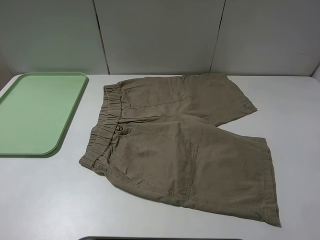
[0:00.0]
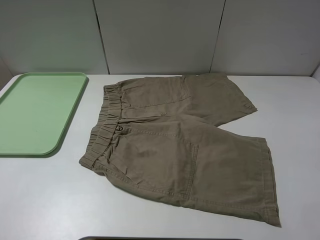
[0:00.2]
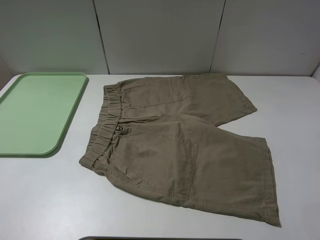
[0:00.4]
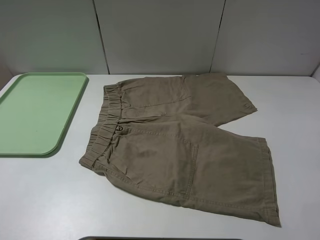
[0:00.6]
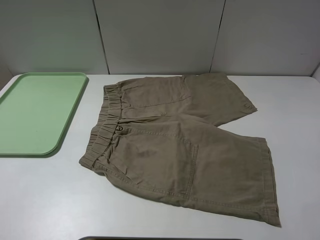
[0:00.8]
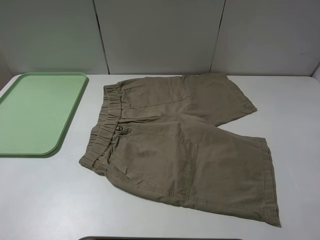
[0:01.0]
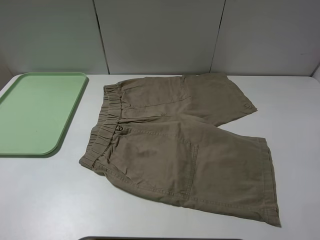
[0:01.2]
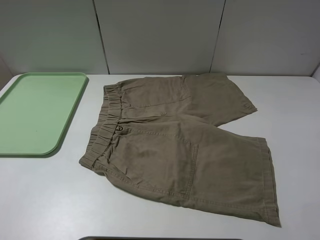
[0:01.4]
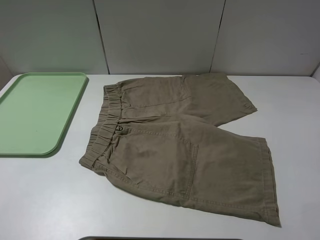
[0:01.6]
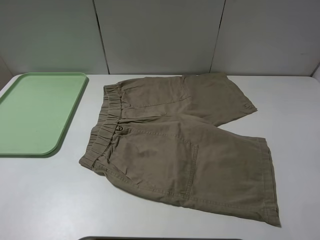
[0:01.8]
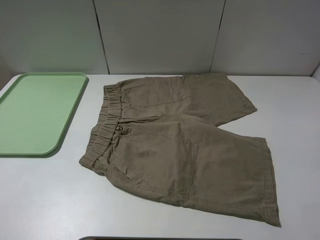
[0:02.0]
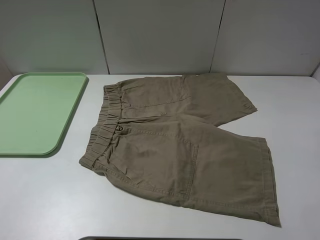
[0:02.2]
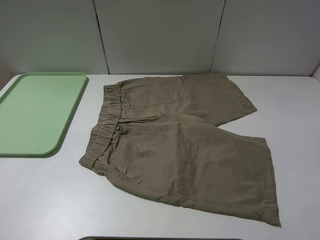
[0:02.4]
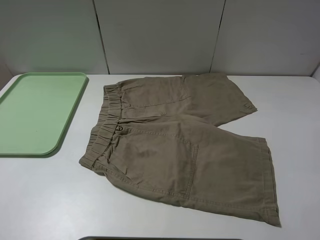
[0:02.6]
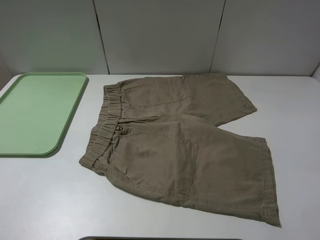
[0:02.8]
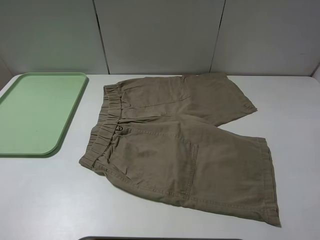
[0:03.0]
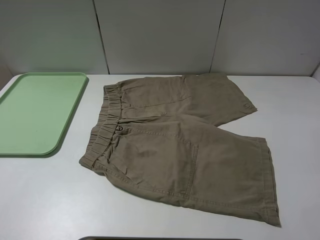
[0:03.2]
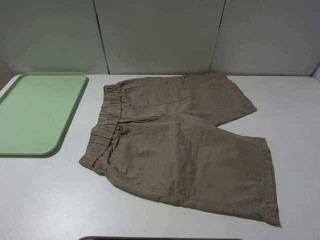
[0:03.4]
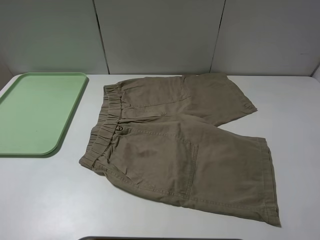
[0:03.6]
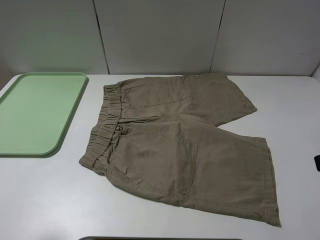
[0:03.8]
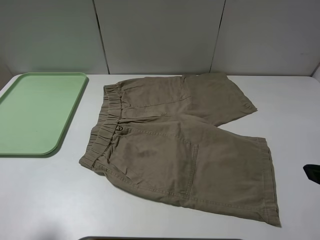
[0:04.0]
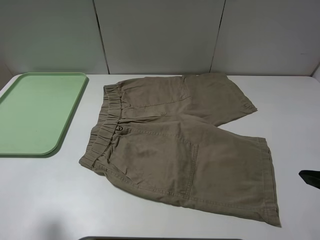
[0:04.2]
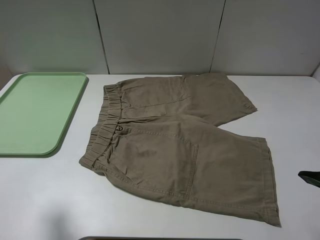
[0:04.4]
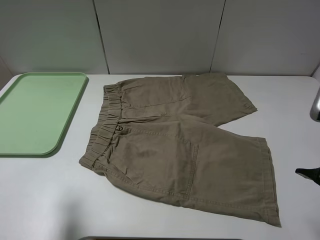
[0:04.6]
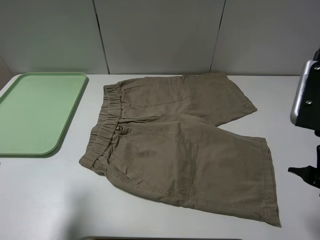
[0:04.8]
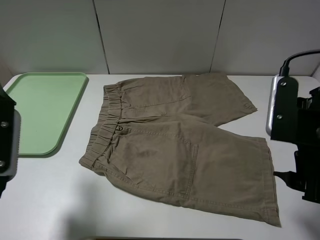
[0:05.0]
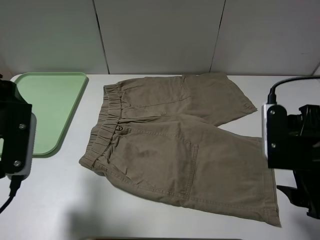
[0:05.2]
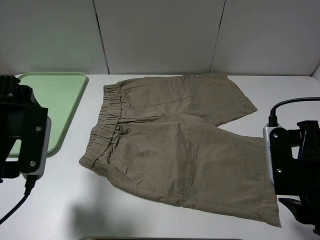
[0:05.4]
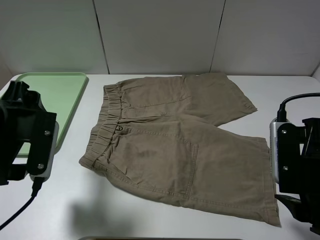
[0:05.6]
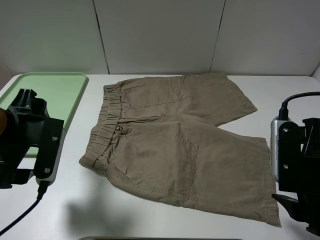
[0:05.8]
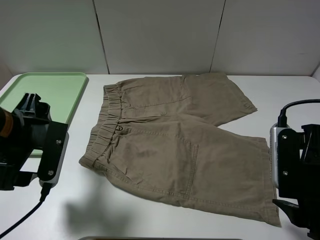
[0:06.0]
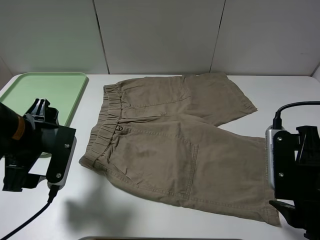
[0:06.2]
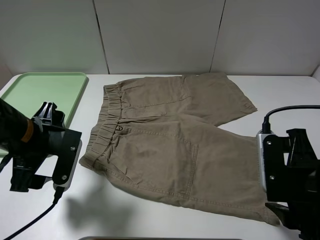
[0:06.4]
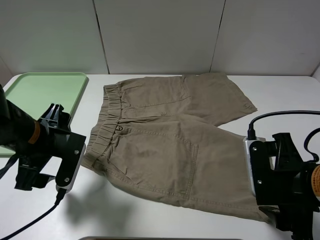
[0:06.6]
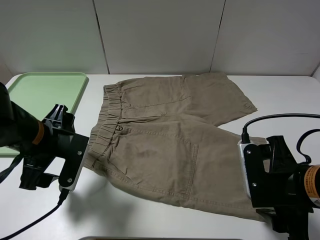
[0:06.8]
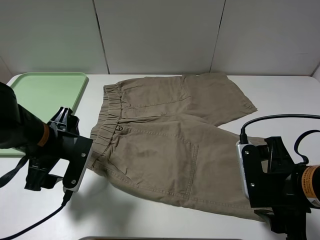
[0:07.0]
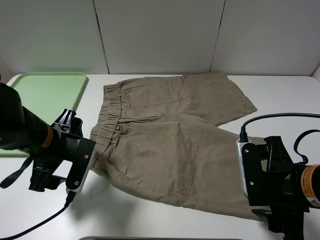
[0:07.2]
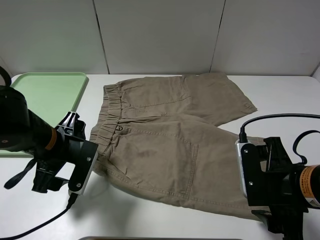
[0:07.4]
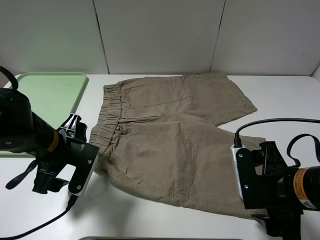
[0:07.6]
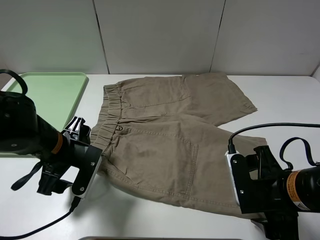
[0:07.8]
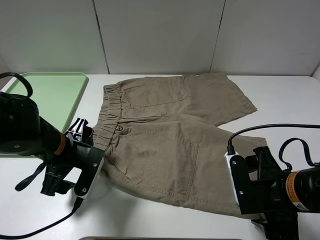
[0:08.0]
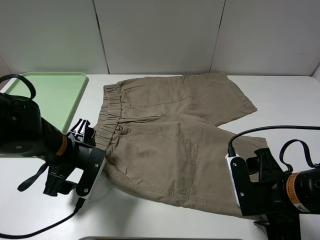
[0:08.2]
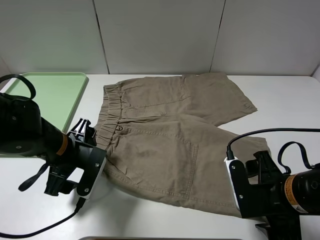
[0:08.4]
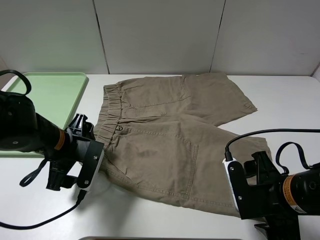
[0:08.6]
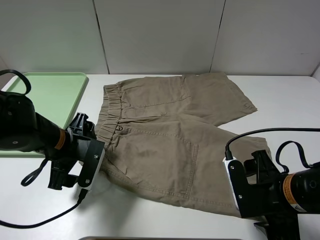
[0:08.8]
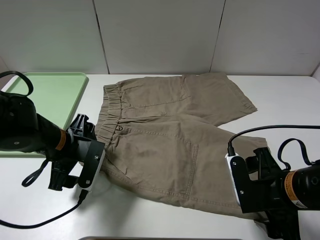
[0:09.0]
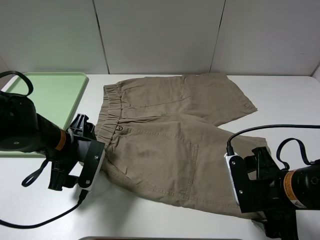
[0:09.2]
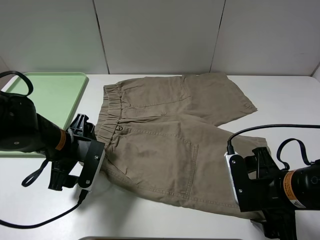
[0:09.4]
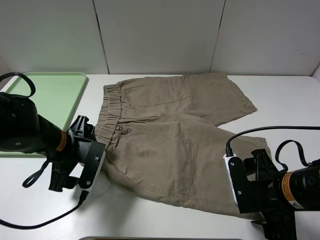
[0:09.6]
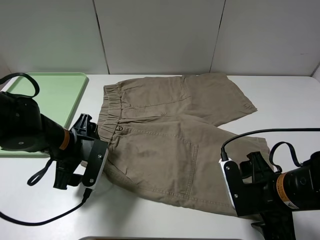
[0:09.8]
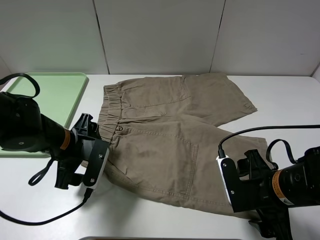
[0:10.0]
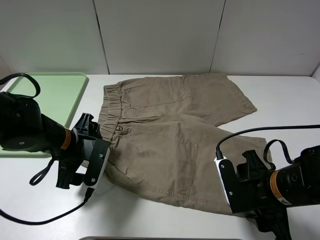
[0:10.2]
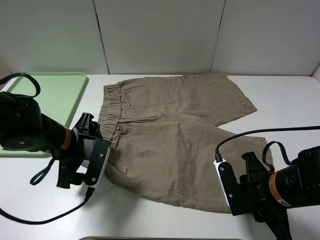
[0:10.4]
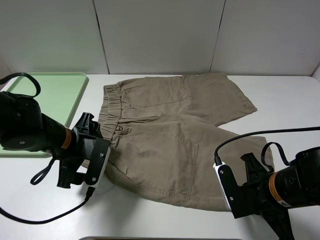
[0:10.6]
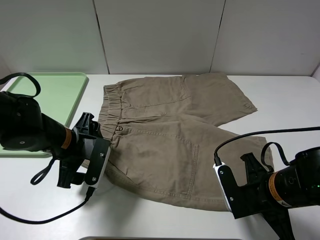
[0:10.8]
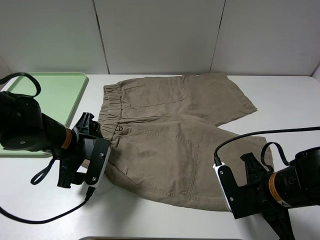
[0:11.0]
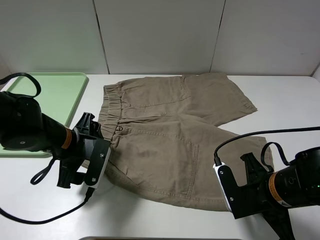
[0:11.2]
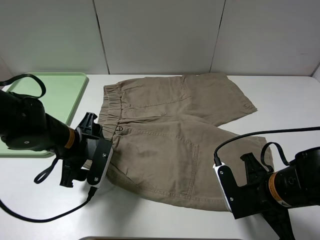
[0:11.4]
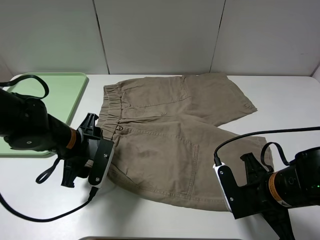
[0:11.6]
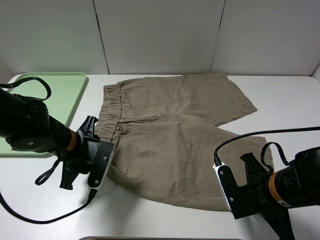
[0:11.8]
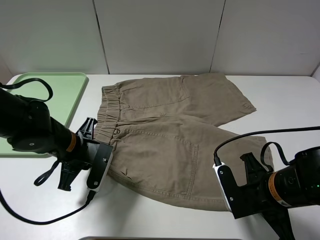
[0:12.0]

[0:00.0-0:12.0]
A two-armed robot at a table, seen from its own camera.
Task of the whole recording: fold the khaki jeans in half with two grippers, then fold them in half again, and use the left claw to place the folded fold khaki jeans on the tray.
Step, 0:00.0 to 0:10.8: Grasp the khaki trousers with the right gripper.
0:00.0 to 0:01.6: Both grippers stay put.
0:03.0 to 0:04.4: The left gripper travels forward by roughly 10 cm.
0:04.4 to 0:06.0: The right gripper travels downward by about 10 cm; the left gripper travels downward, forward and to the right by some 15 cm.
0:06.0 to 0:07.6: The right gripper changes place by some 5 cm; the left gripper moves downward, approximately 5 cm.
0:07.6 to 0:09.0: The grippers stay close to where they were, moving slightly.
0:09.0 to 0:10.4: The right gripper closes.
0:10.4 to 0:12.0: The left gripper closes its fingers. Meanwhile the right gripper closes its fingers.

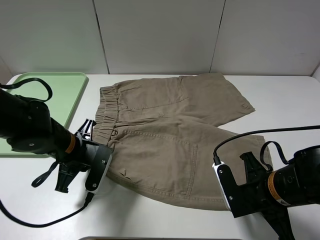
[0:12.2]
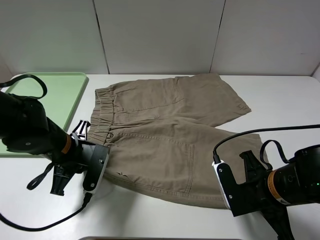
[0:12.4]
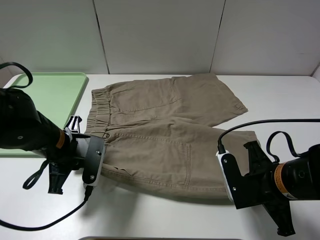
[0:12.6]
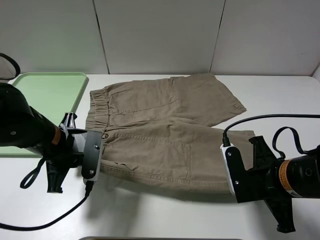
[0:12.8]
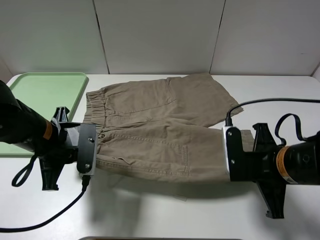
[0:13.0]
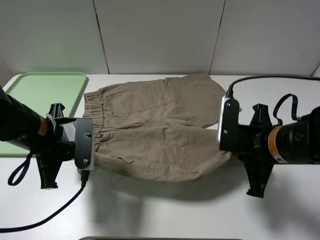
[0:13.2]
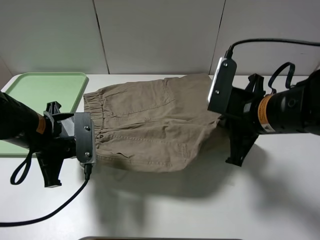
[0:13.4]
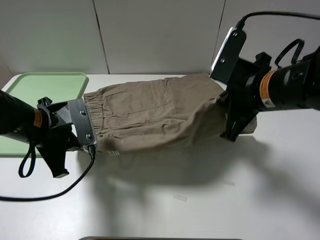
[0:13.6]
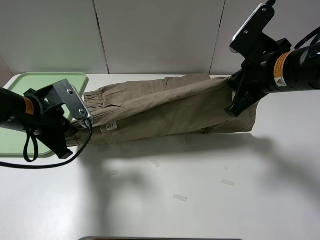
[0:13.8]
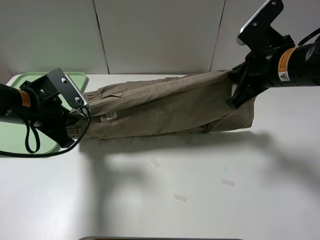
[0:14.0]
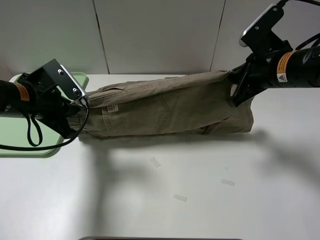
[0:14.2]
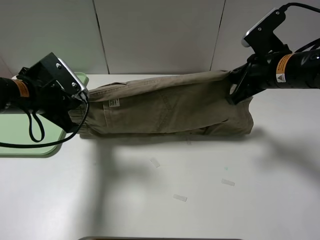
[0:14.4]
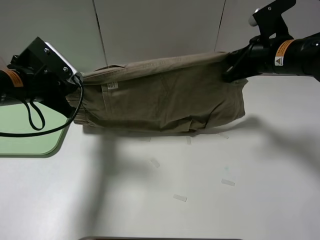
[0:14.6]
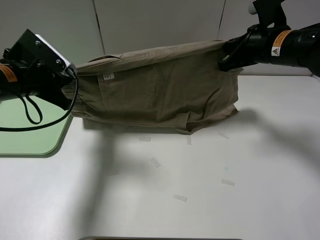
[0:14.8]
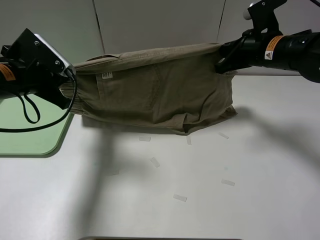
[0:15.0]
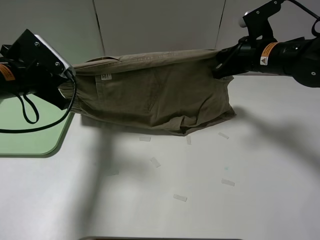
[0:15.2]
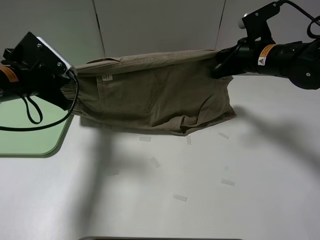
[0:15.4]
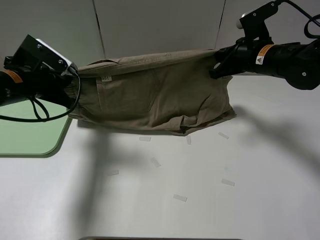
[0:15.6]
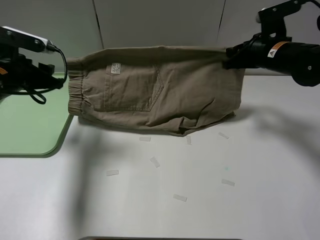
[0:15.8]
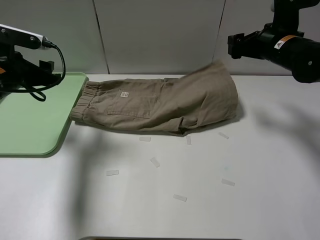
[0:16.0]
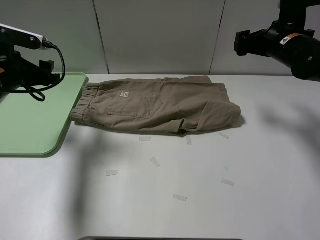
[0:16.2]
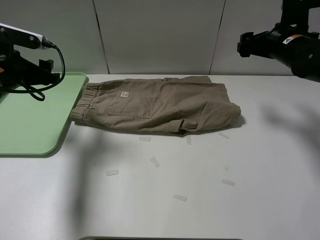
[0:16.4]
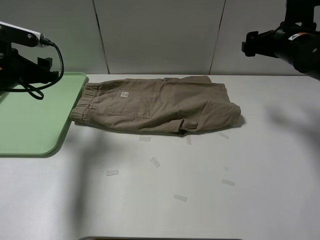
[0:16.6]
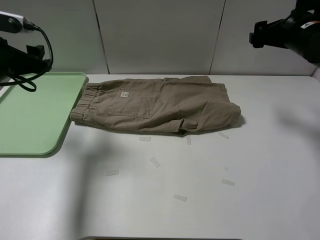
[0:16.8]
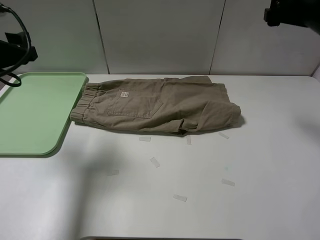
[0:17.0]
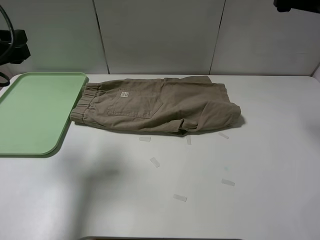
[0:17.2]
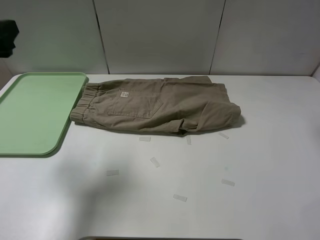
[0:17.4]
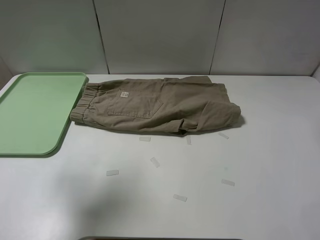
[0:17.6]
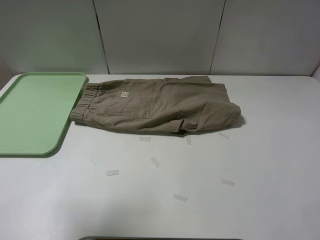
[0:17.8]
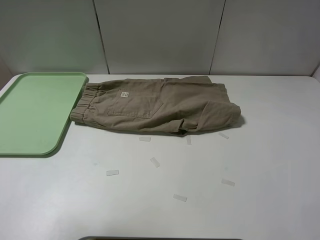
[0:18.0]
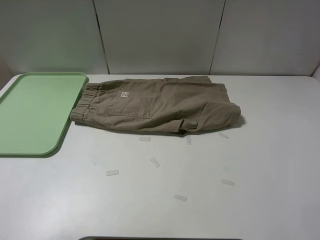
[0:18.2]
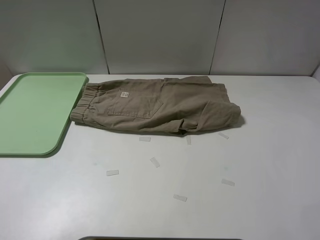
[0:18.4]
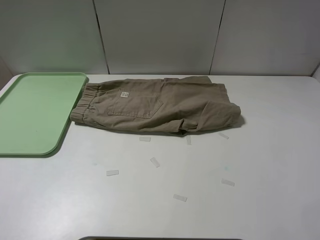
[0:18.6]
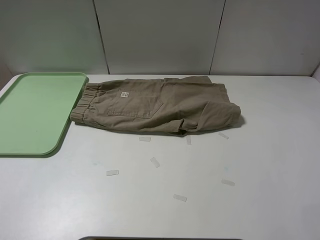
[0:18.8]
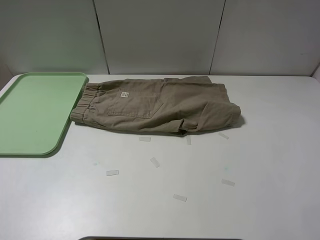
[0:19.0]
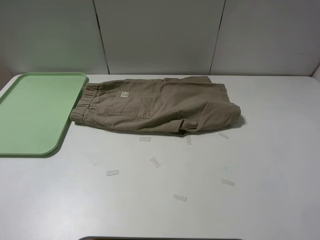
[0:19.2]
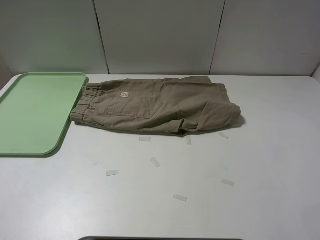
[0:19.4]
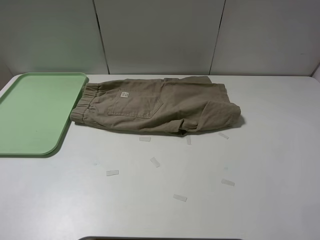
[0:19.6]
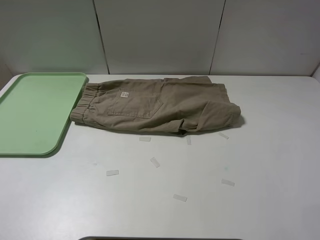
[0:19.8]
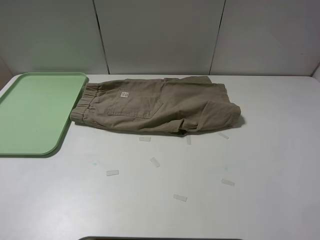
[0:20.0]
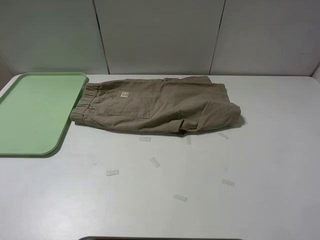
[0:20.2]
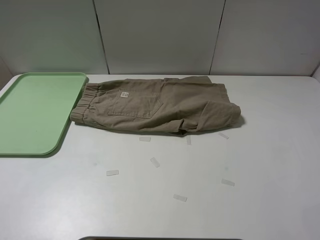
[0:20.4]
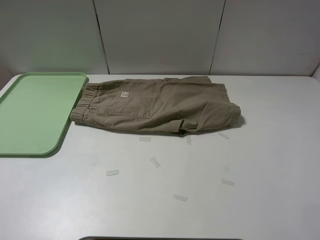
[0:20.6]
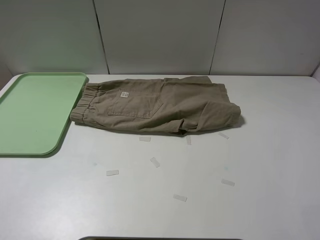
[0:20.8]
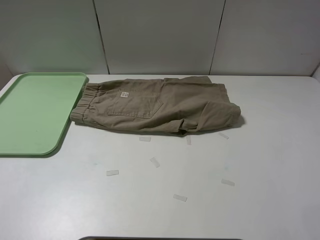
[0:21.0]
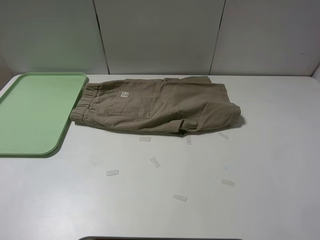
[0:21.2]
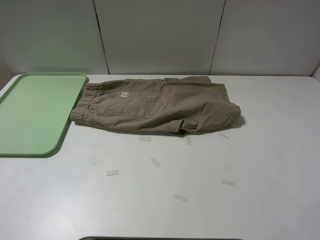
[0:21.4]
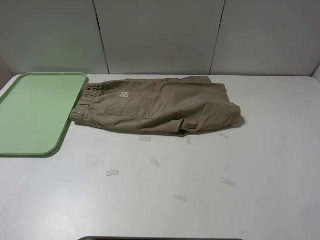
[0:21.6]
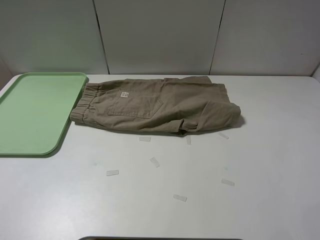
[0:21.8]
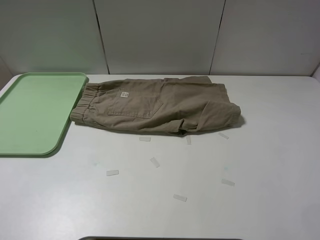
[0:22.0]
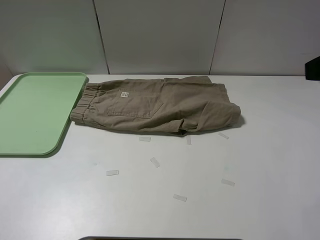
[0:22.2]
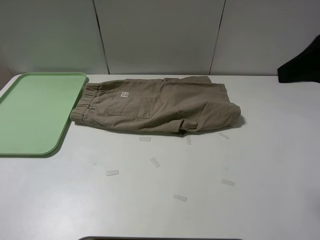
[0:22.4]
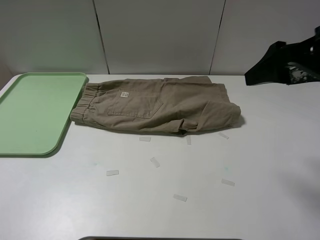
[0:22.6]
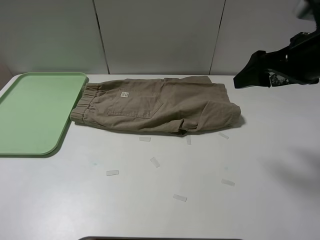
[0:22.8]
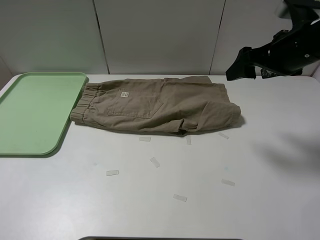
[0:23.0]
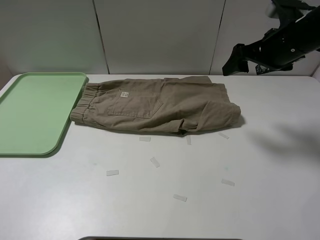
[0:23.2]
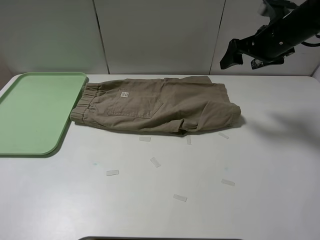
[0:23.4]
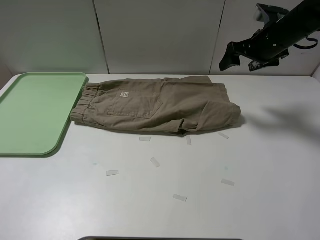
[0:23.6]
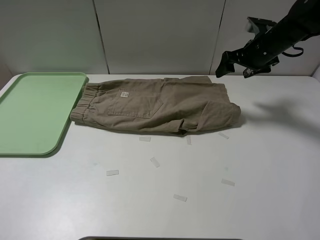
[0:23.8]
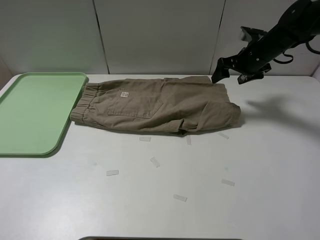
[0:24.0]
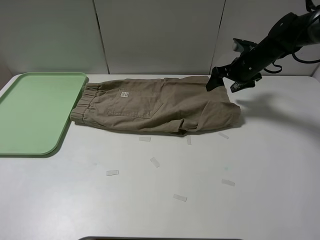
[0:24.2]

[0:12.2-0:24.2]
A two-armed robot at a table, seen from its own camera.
Task of the whole recording: fold the khaki jeans in half with two grippers, then fold them in half again, and use the left claw to place the folded fold khaki jeans on the tray.
Step, 0:12.4 to 0:15.8: Fold the khaki trousers upwards with the left gripper.
0:12.2 to 0:13.8: The left gripper shifts some 10 cm upward, while the right gripper goes about 20 cm upward and forward.
0:13.8 to 0:15.2: The left gripper moves about 5 cm. Meanwhile the right gripper heads forward, covering approximately 10 cm.
0:15.2 to 0:16.6: The left gripper opens, while the right gripper goes about 5 cm to the right, and opens up.
0:16.6 to 0:18.2: The right gripper heads upward and backward, covering approximately 25 cm; the left gripper shifts roughly 25 cm backward and upward.
0:21.2 to 0:22.6: The right gripper heads forward and downward, covering some 20 cm.
0:22.6 to 0:24.2: The right gripper moves forward and downward, approximately 30 cm.
